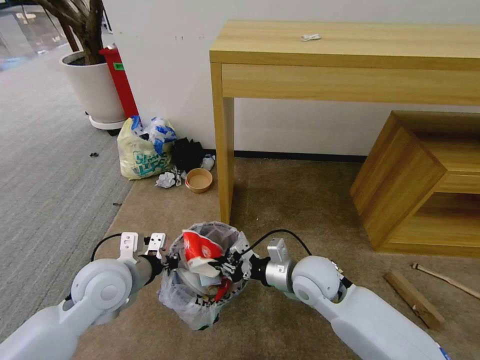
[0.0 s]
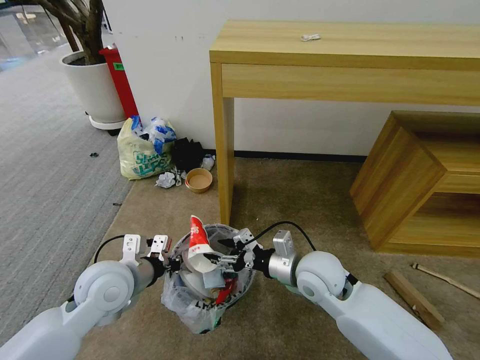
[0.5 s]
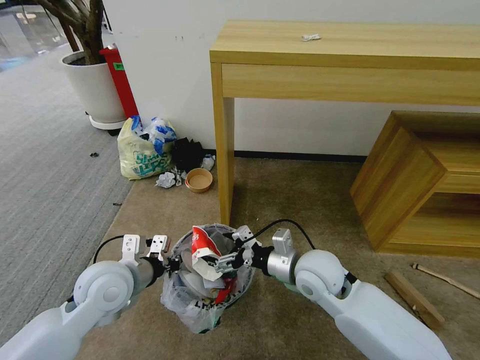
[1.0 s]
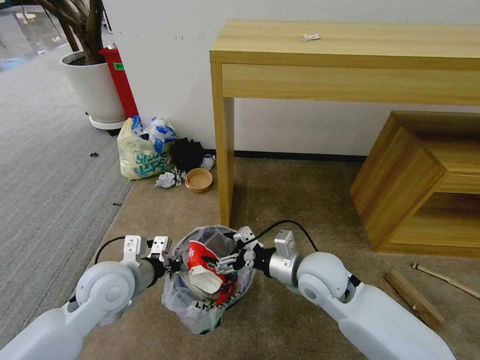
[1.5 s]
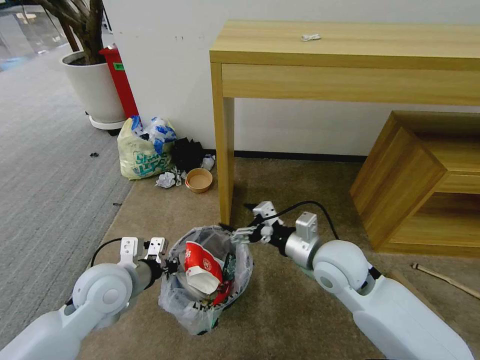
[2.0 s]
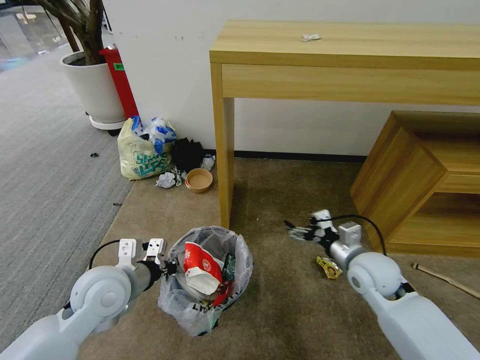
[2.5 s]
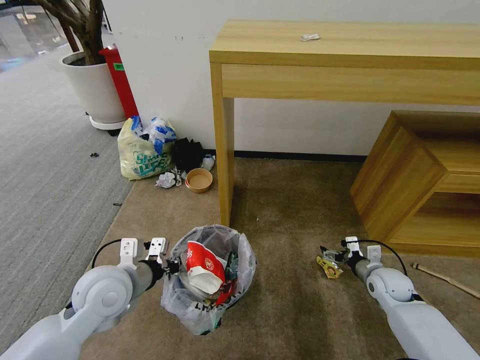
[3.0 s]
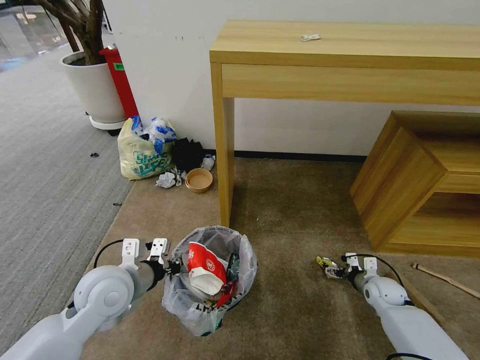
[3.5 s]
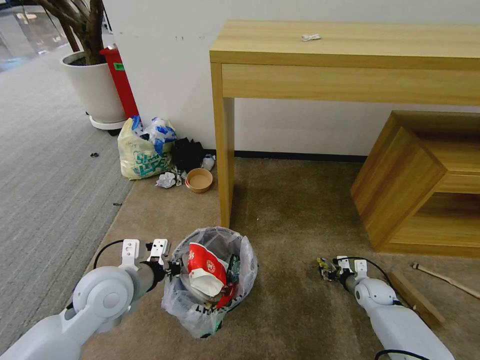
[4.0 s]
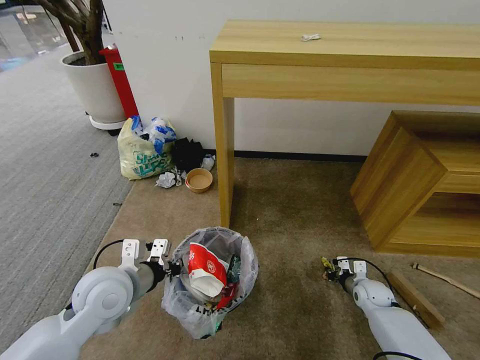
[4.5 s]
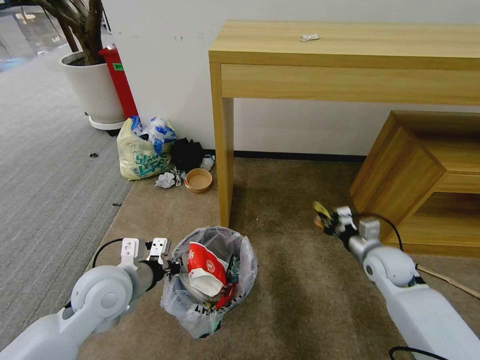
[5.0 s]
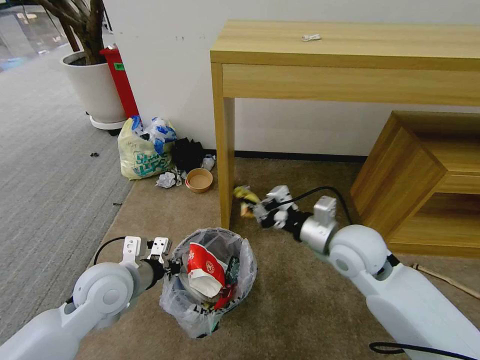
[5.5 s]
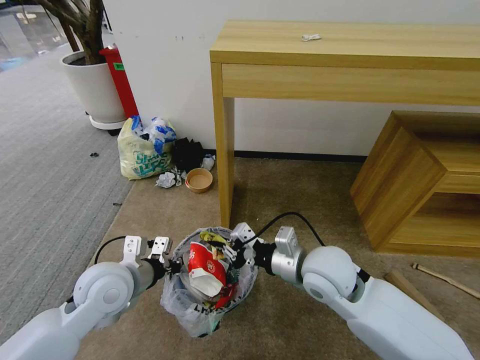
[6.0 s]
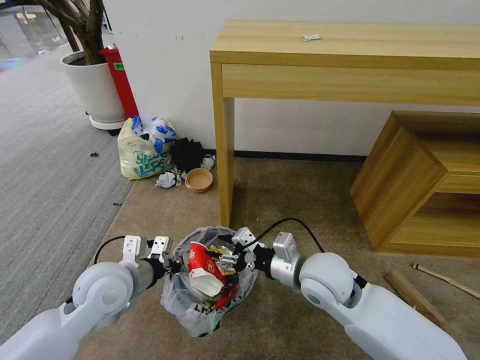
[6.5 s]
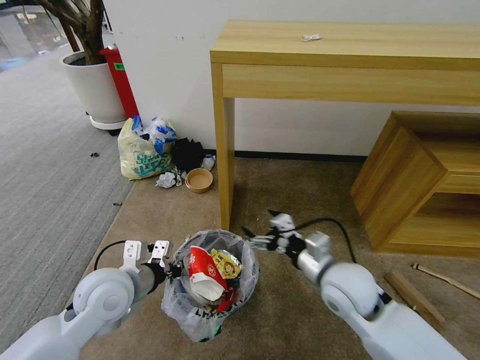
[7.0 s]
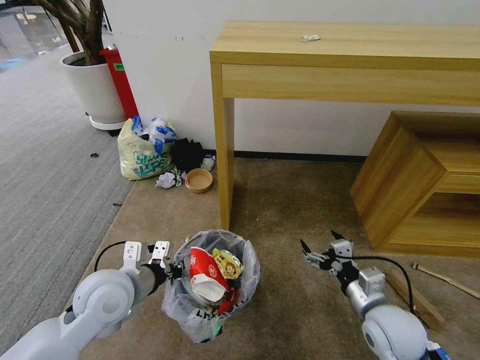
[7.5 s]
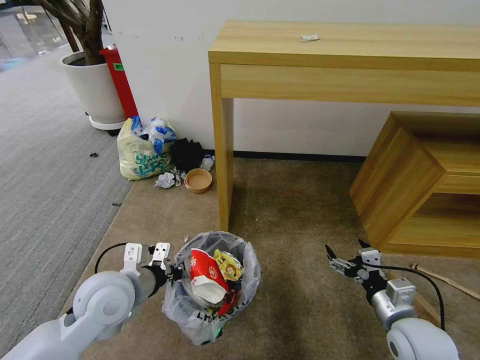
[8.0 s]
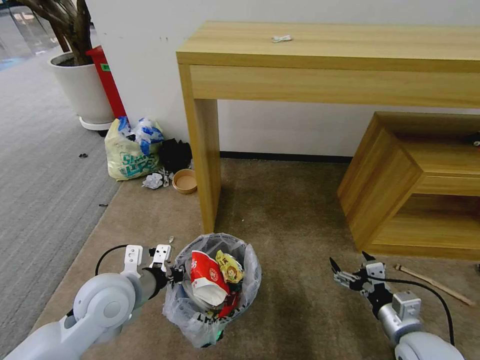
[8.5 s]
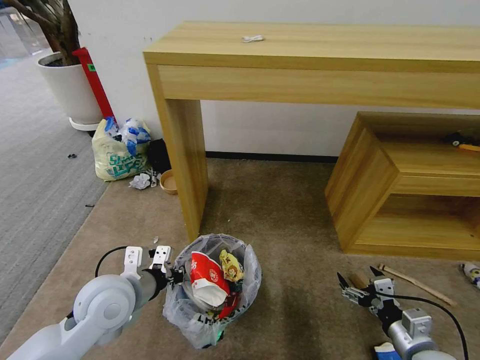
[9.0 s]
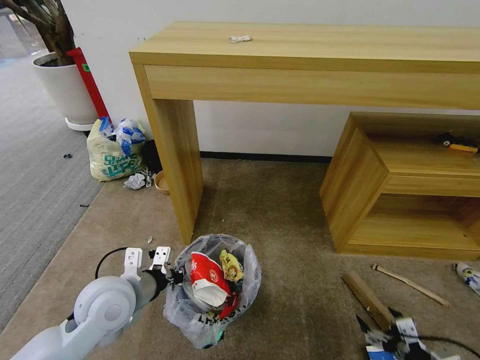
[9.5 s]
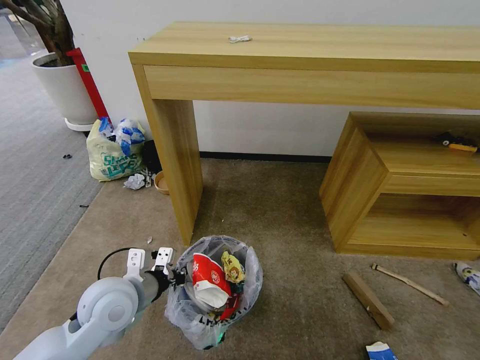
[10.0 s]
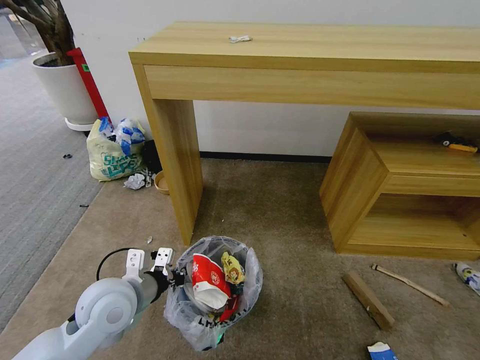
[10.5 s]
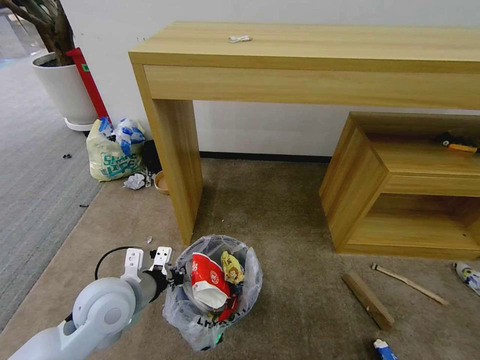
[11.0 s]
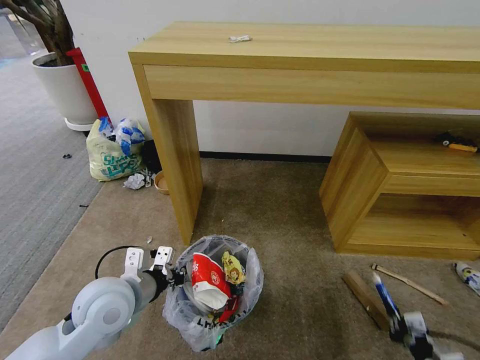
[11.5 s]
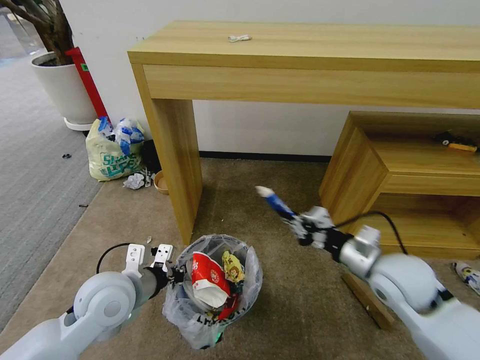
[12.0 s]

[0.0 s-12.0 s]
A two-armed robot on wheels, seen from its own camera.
Task of the whole recording: Pick up the trash bin and place the garbage on the floor into it.
0.0 to 2.0 s: The right gripper shifts some 5 cm upward, and opens its fingers.
2.0 to 4.0 s: The right gripper goes approximately 35 cm downward and to the right, and closes up.
4.0 to 6.0 s: The right gripper travels upward and to the left by some 35 cm, and closes.
6.0 to 8.0 s: The right gripper moves to the right, downward and backward, some 20 cm, and opens its fingers.
8.0 to 10.0 s: The right gripper moves backward, downward and to the right, roughly 25 cm.
10.0 to 12.0 s: The right gripper shifts approximately 40 cm forward, upward and to the left, and closes its fingers.

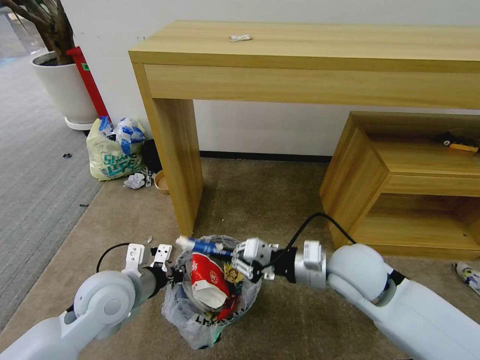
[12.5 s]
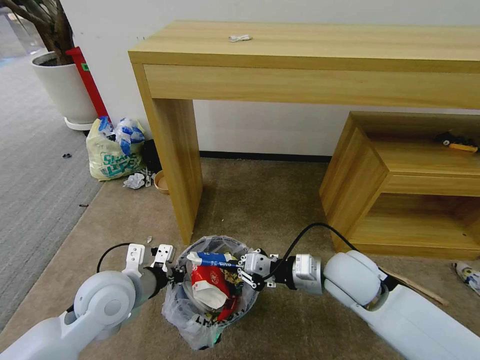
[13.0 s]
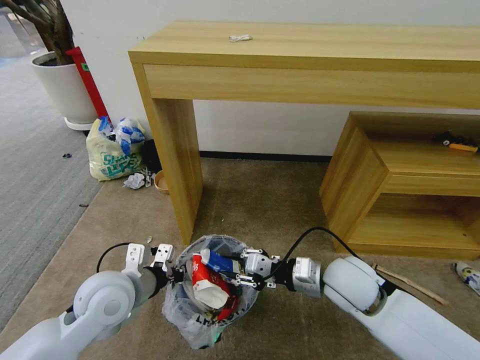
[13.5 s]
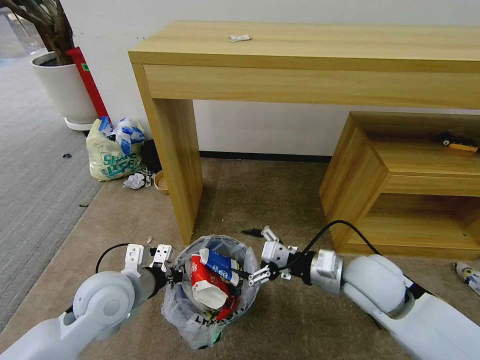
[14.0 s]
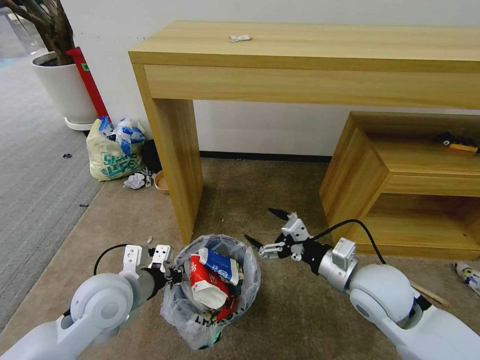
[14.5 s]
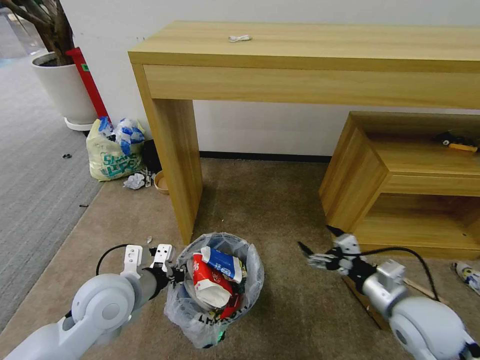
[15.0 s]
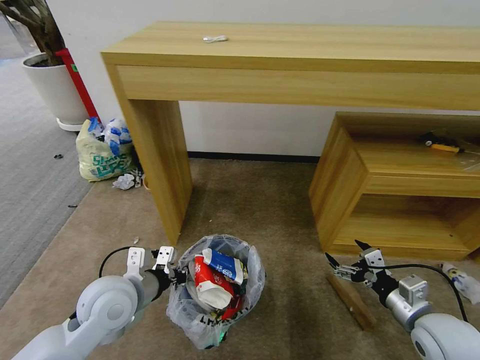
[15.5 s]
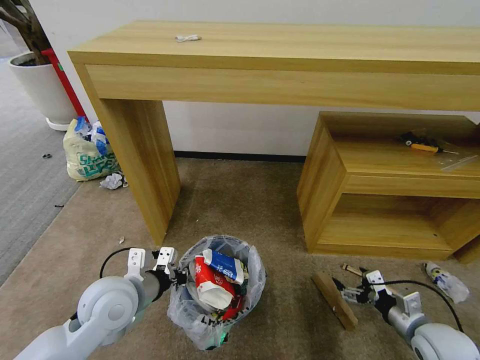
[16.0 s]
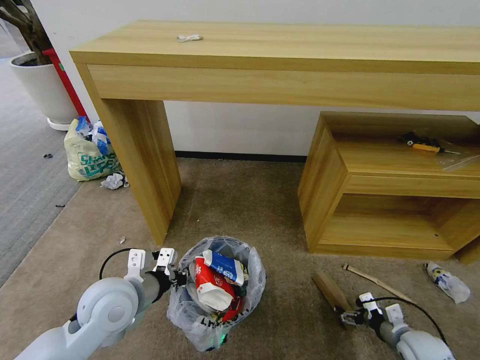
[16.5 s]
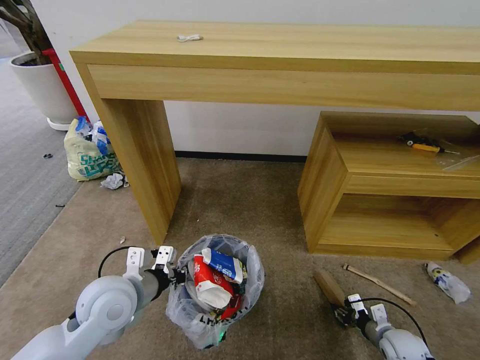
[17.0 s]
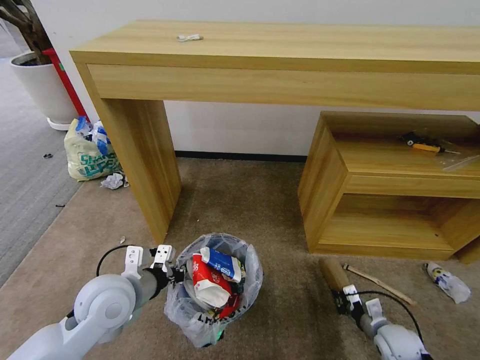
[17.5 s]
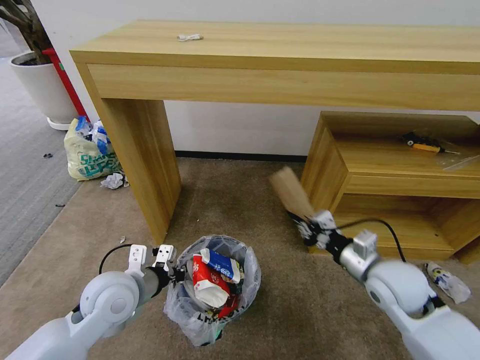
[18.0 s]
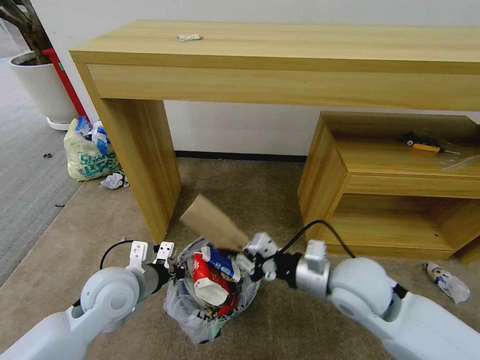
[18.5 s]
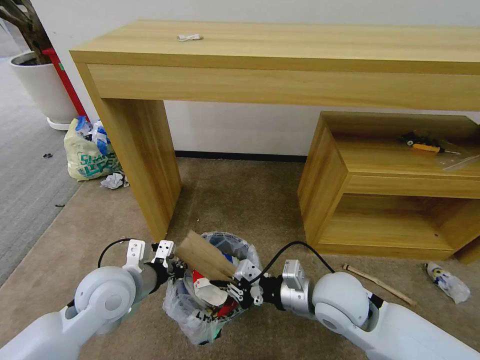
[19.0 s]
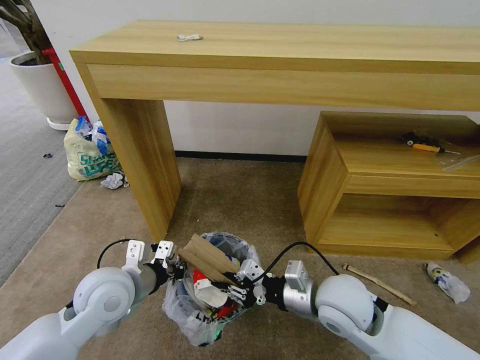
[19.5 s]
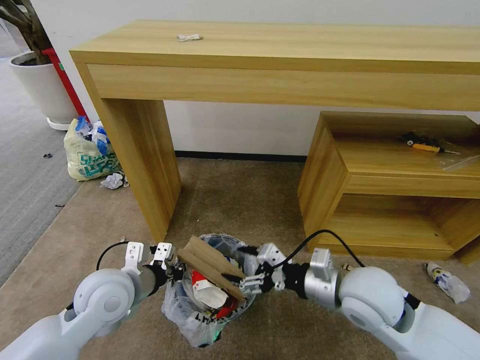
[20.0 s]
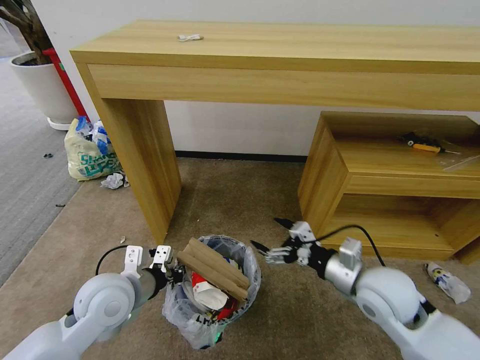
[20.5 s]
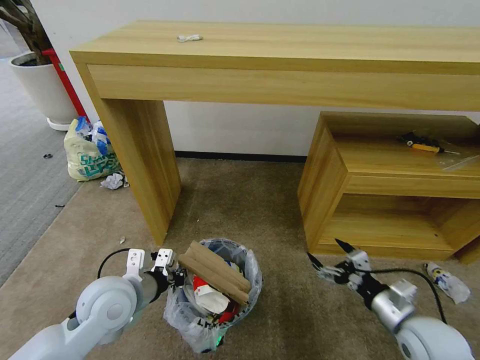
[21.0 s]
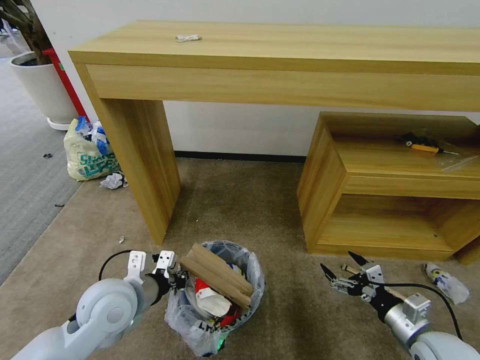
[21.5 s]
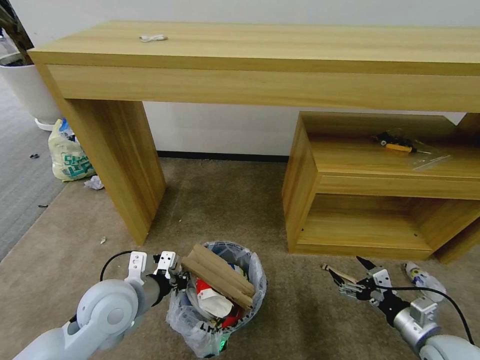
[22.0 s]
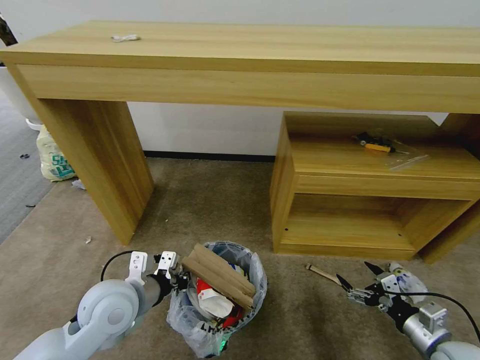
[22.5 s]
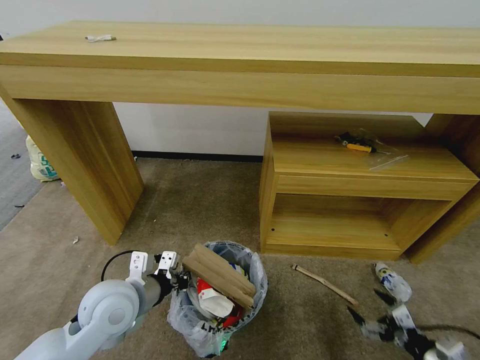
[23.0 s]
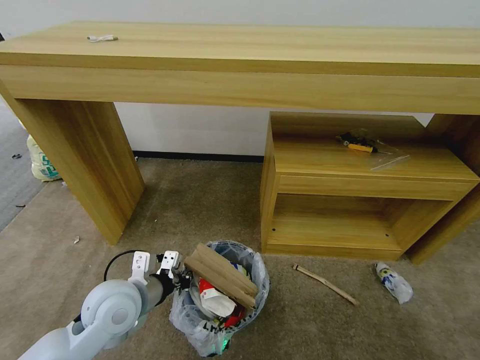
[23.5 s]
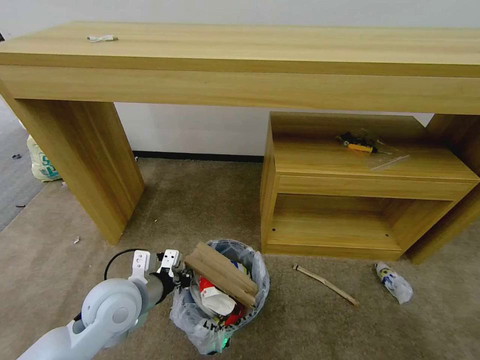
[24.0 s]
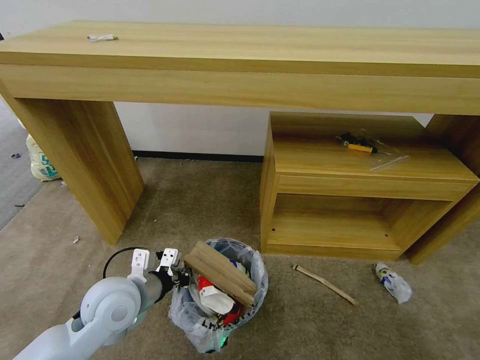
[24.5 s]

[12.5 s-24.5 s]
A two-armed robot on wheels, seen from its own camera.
Task of the whole recording: Pick up the trash bin and place the garbage on the floor into it.
12.5 to 14.5 s: The right gripper shifts by approximately 5 cm, and opens up.
14.5 to 16.5 s: The right gripper shifts approximately 30 cm downward and to the right.
16.5 to 18.5 s: The right gripper is displaced upward and to the left by about 35 cm, and closes.
18.5 to 20.5 s: The right gripper shifts about 5 cm to the right, and opens.
20.5 to 22.5 s: The right gripper heads to the right, downward and backward, covering about 20 cm.
22.5 to 24.5 s: The right gripper moves backward and downward, some 30 cm.

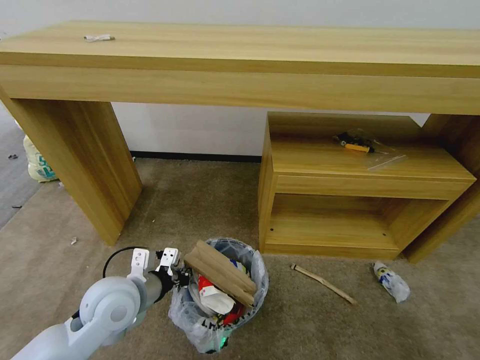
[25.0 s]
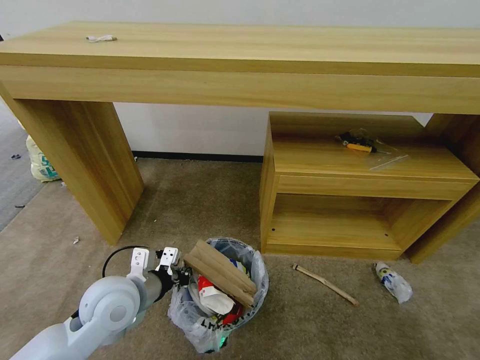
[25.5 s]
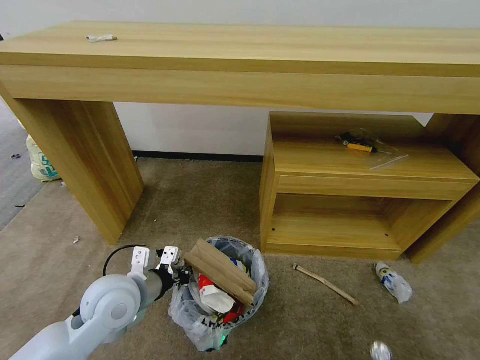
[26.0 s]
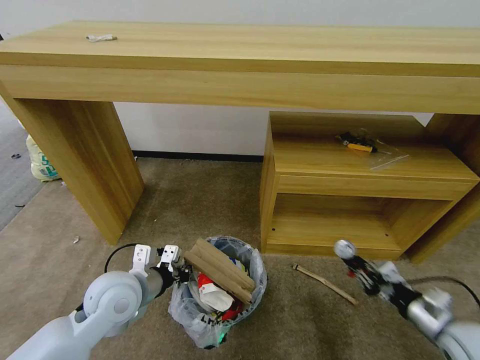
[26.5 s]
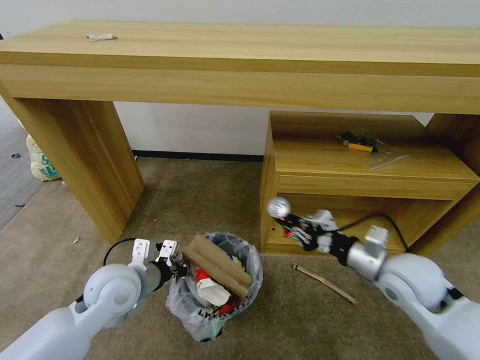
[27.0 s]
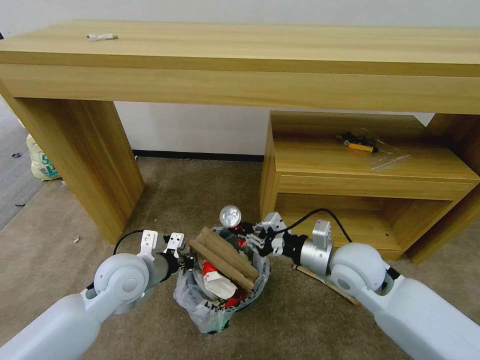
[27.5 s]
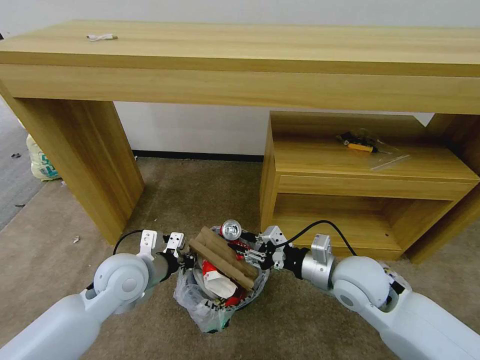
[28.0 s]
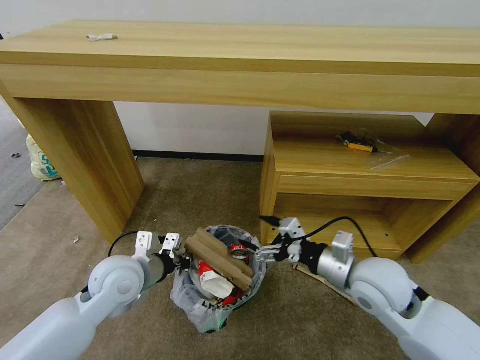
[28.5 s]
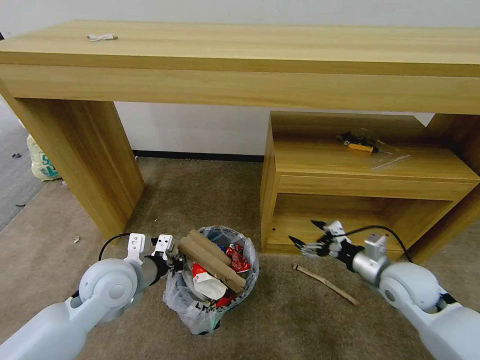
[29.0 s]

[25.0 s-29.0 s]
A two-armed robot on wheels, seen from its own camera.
Task of the whole recording: Pick up the trash bin and place the garbage on the floor into it.
25.0 to 27.0 s: The right gripper heads forward, upward and to the left, covering about 50 cm, and closes up.
27.0 to 29.0 s: The right gripper travels downward and to the right by roughly 10 cm, and opens up.
